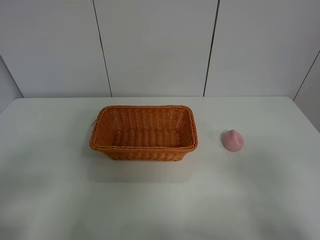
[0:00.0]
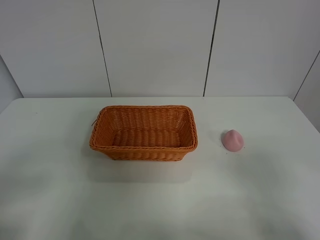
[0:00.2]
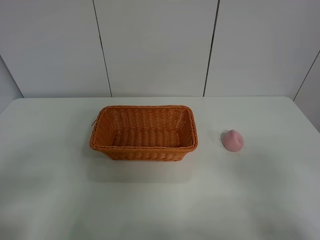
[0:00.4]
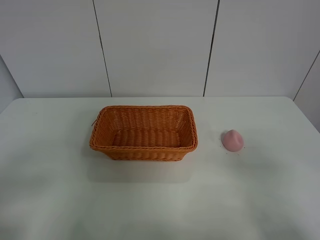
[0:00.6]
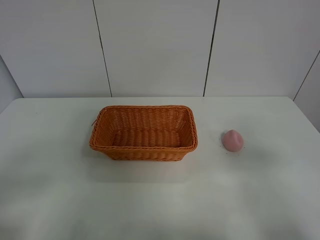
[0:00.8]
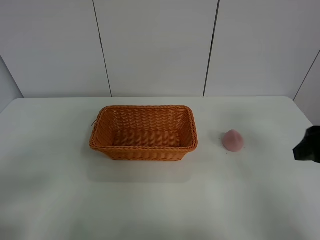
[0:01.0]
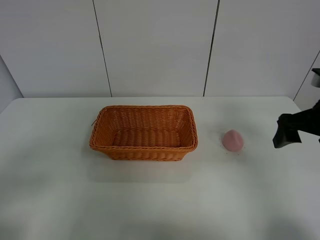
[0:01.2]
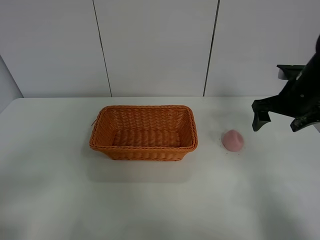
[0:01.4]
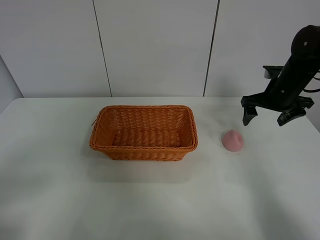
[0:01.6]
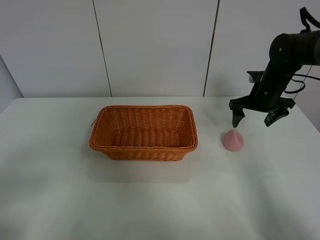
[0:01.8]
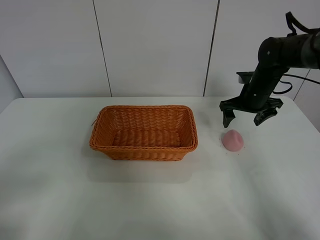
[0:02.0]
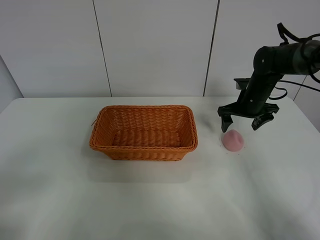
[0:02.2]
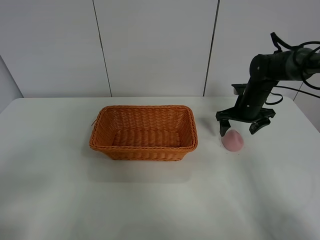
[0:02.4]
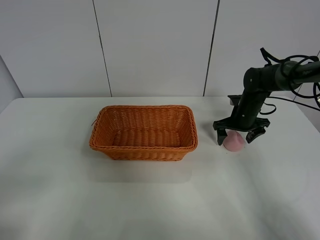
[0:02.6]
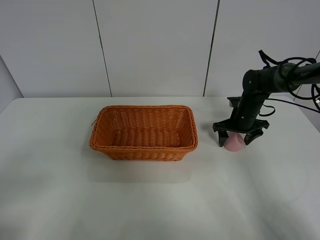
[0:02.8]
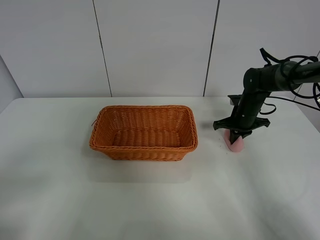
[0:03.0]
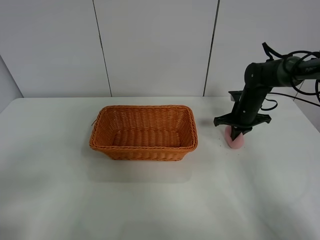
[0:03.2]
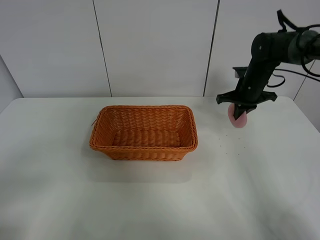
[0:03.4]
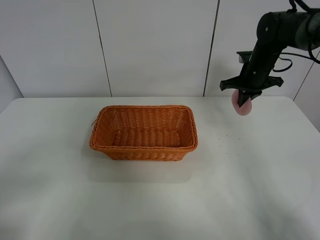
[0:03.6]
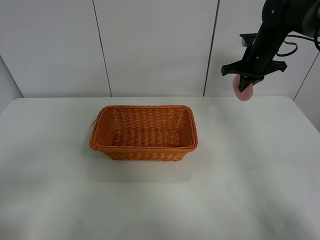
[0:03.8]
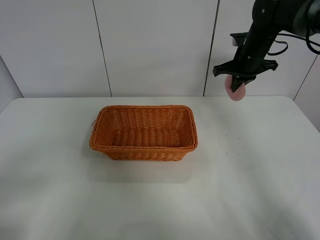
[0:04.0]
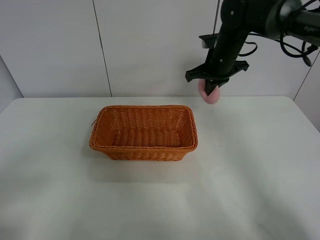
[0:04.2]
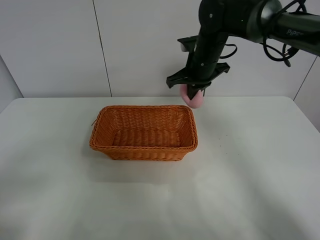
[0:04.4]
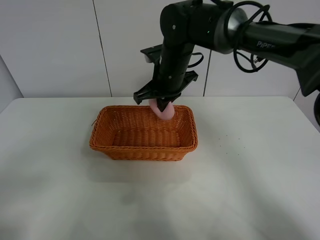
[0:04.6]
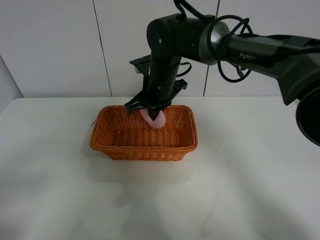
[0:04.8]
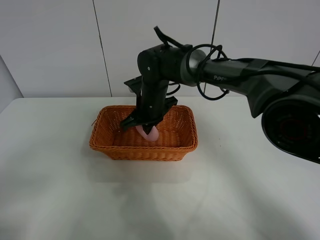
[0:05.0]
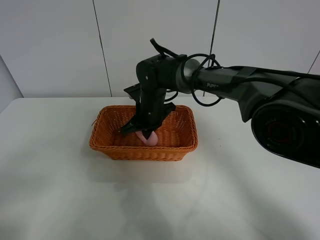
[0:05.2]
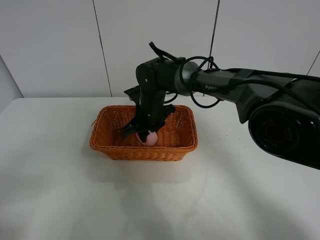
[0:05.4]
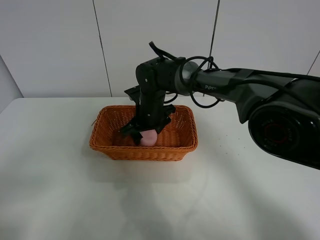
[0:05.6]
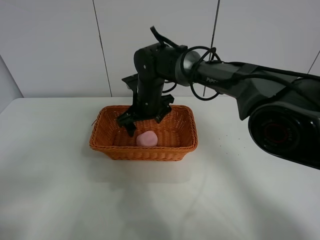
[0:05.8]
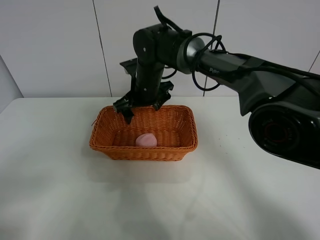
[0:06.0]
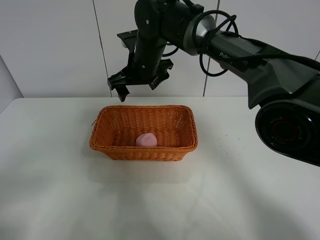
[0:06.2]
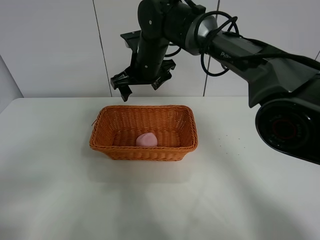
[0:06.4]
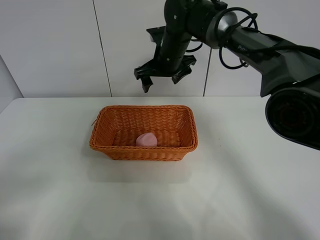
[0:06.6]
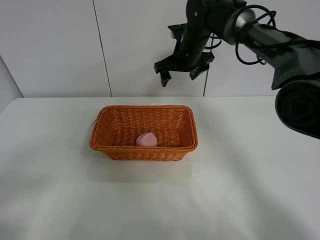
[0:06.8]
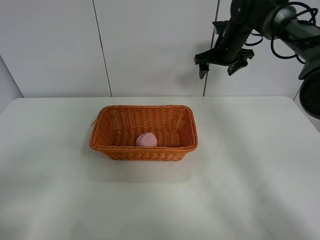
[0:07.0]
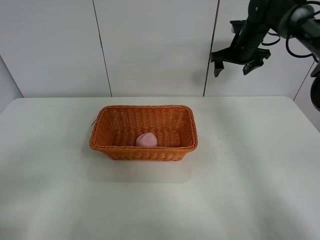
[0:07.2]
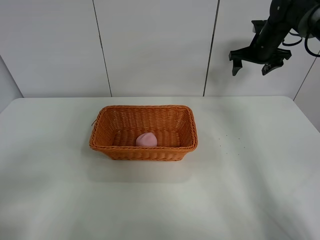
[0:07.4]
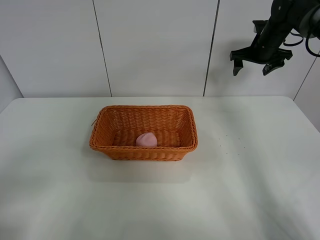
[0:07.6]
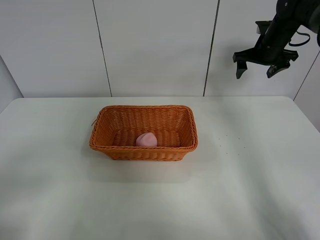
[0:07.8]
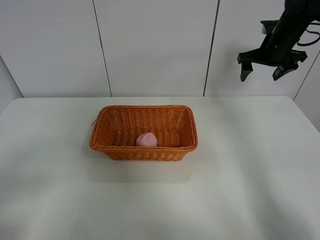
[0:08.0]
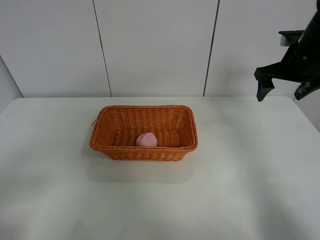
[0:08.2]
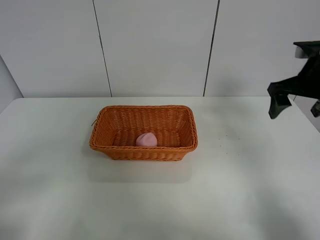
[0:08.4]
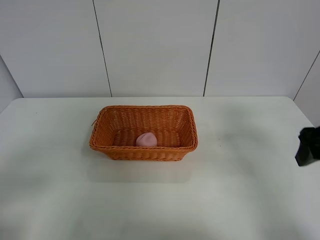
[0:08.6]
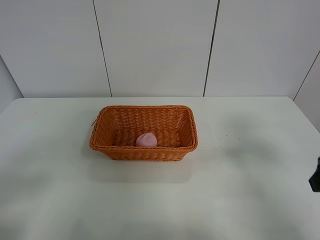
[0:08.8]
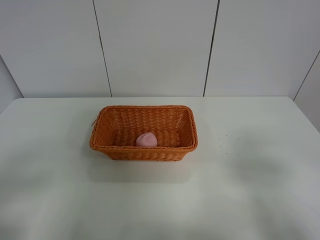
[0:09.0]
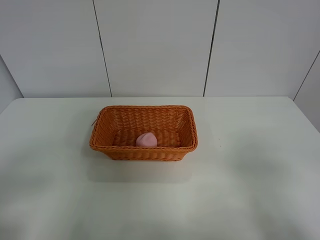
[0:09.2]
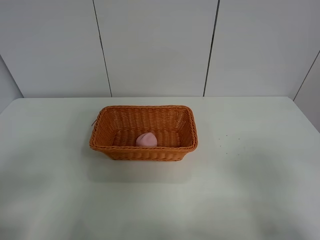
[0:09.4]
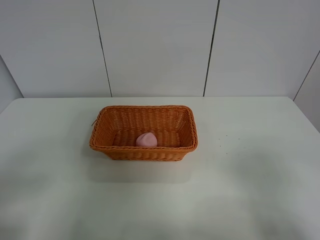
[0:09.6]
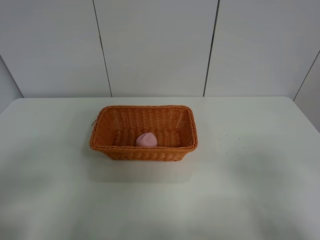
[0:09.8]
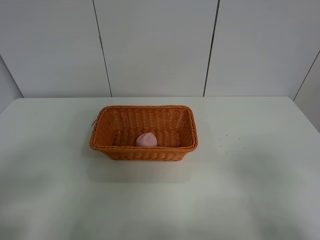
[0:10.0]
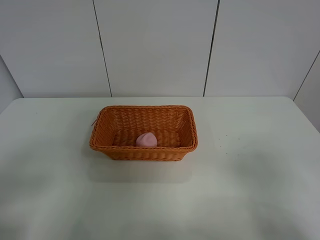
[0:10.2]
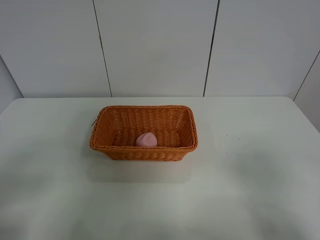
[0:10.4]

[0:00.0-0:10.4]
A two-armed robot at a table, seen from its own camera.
Step, 0:00.0 to 0:03.2: Grasp the peach with right gripper.
Step, 0:03.4 to 0:06.0: Place the peach in the basket with right gripper.
0:00.0 to 0:01.4: The right gripper heads forward, covering about 35 cm.
0:01.4 to 0:03.0: The right gripper travels downward and forward by some 15 cm, and closes its fingers.
0:03.0 to 0:04.4: The right gripper moves to the left and upward, roughly 25 cm.
0:04.4 to 0:06.0: The right gripper moves to the left, roughly 10 cm, reaches some 10 cm downward, then returns, and opens.
0:06.0 to 0:07.4: The right gripper heads to the right, covering approximately 30 cm.
0:07.4 to 0:09.0: The right gripper travels backward by about 50 cm.
